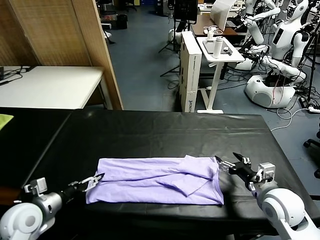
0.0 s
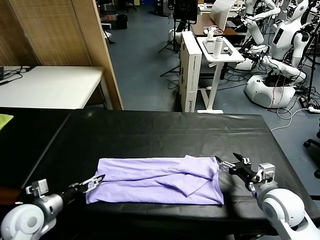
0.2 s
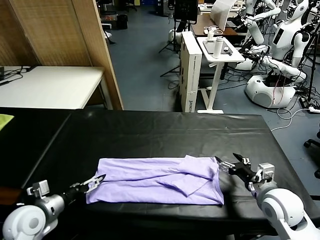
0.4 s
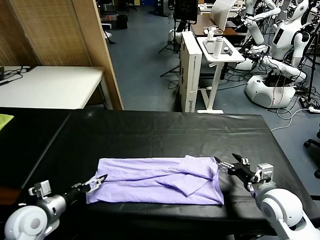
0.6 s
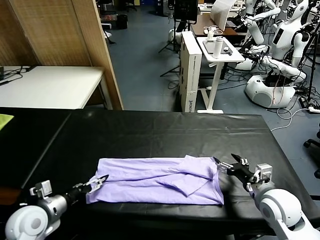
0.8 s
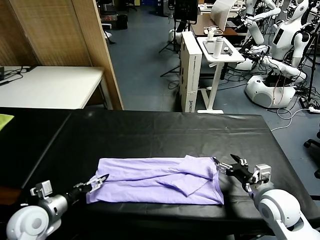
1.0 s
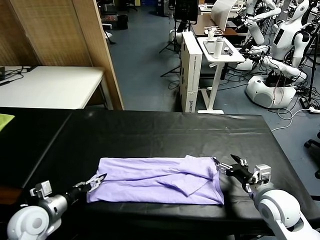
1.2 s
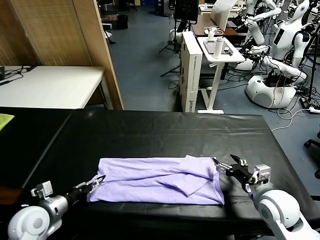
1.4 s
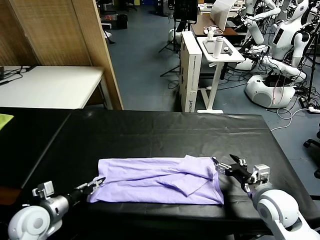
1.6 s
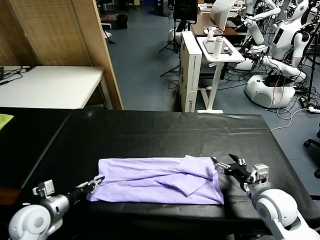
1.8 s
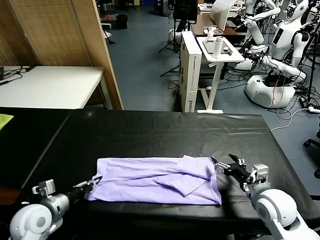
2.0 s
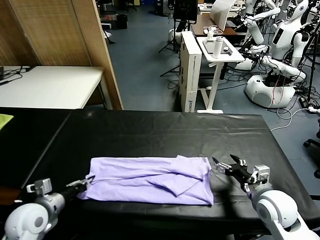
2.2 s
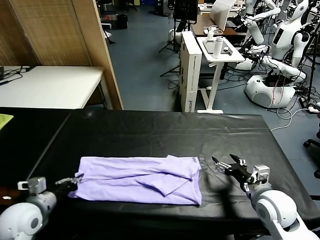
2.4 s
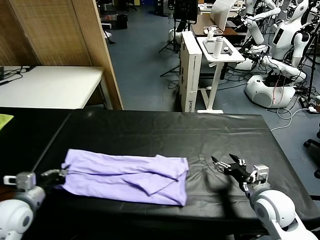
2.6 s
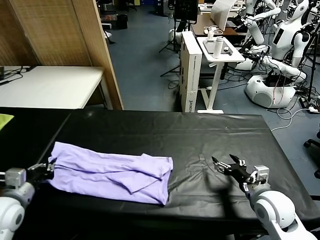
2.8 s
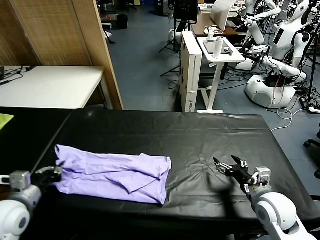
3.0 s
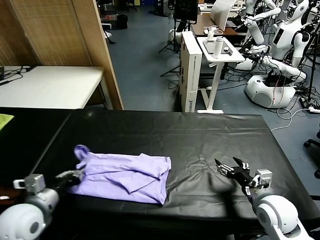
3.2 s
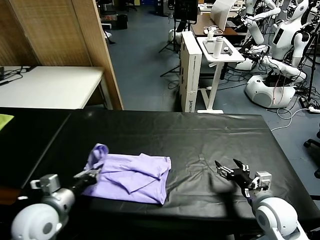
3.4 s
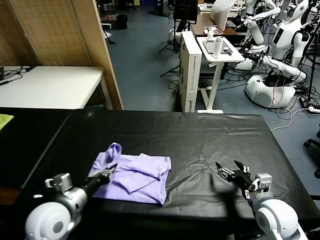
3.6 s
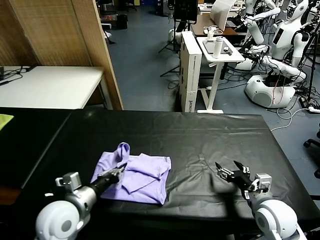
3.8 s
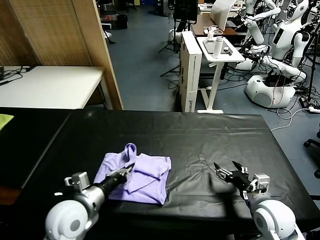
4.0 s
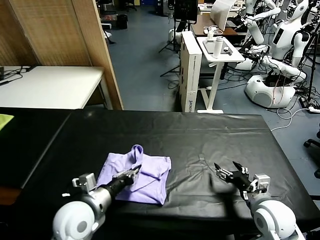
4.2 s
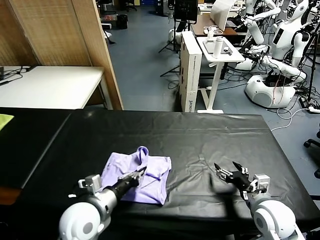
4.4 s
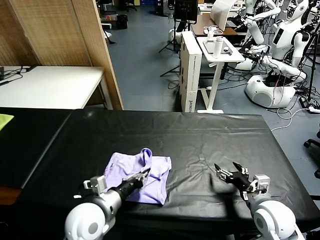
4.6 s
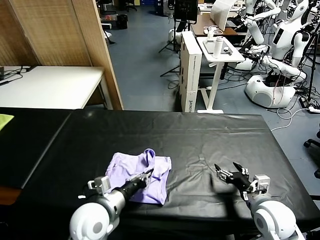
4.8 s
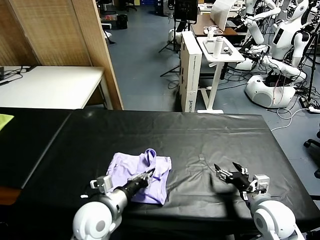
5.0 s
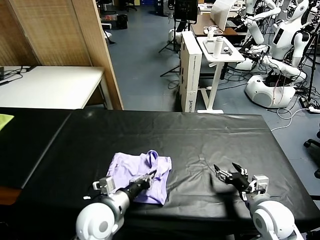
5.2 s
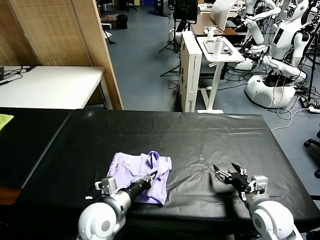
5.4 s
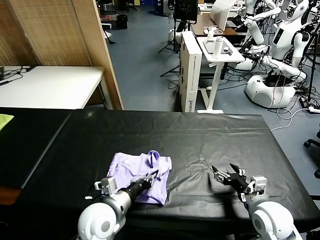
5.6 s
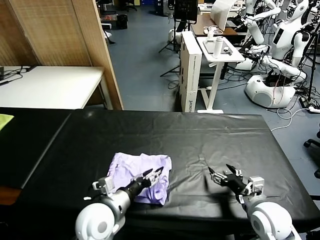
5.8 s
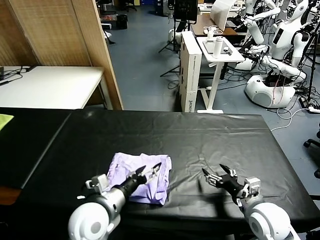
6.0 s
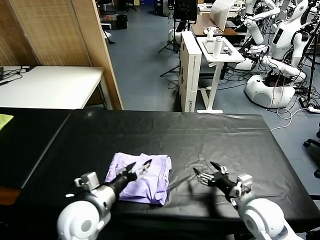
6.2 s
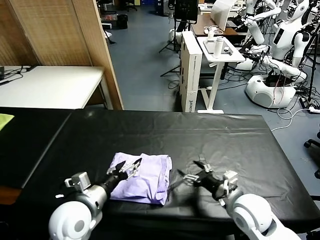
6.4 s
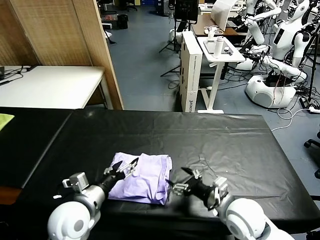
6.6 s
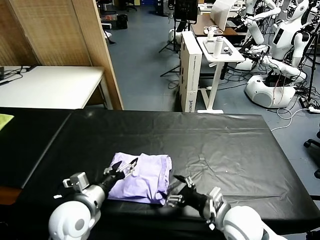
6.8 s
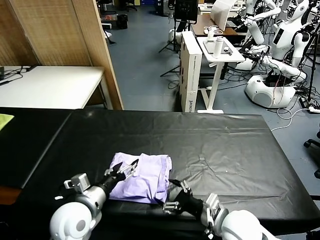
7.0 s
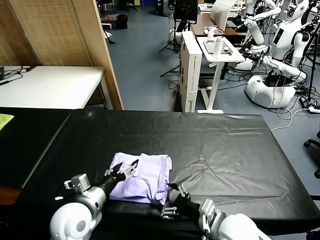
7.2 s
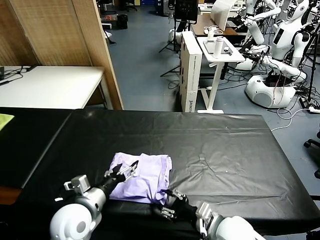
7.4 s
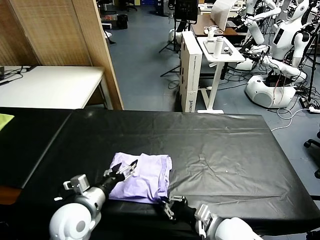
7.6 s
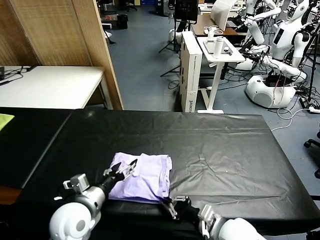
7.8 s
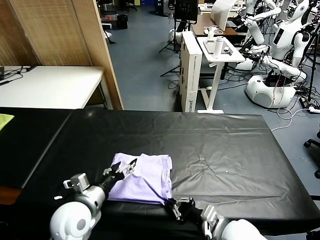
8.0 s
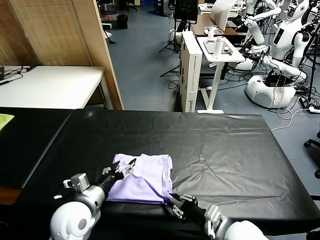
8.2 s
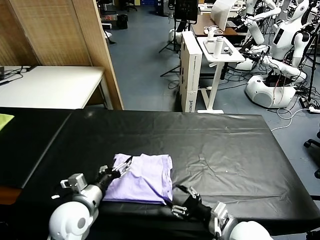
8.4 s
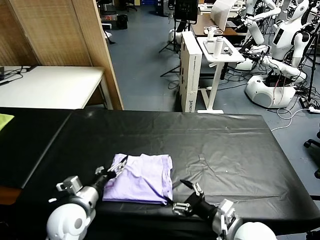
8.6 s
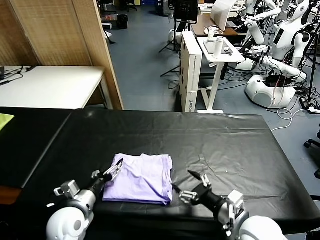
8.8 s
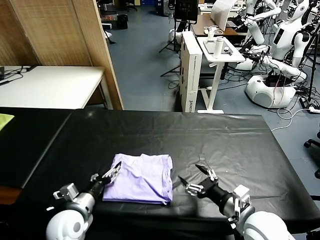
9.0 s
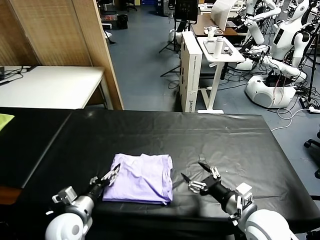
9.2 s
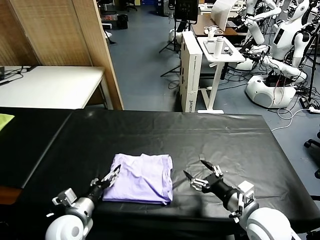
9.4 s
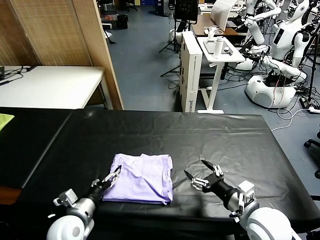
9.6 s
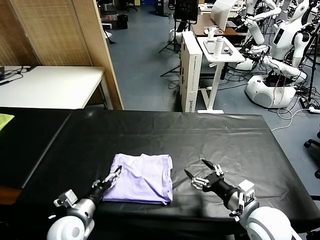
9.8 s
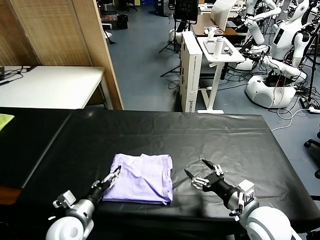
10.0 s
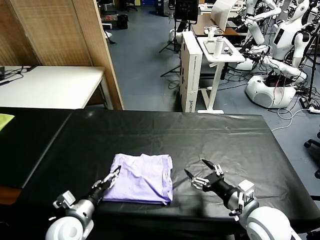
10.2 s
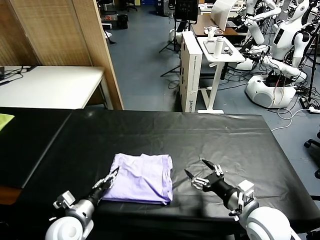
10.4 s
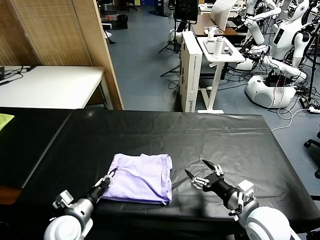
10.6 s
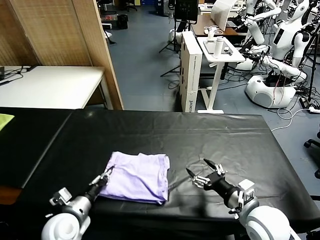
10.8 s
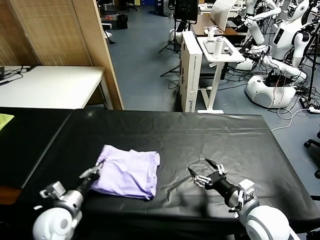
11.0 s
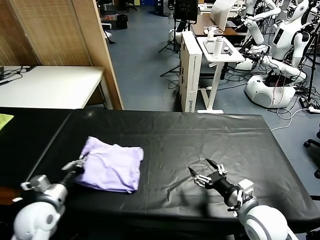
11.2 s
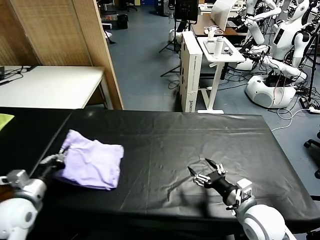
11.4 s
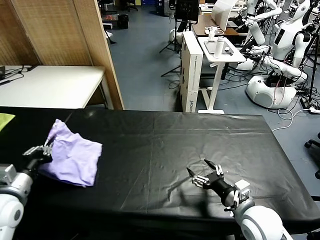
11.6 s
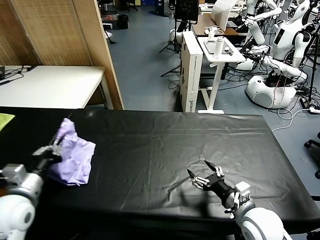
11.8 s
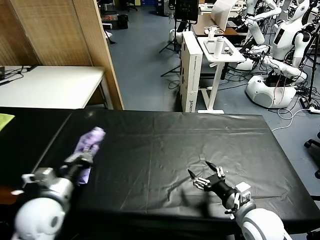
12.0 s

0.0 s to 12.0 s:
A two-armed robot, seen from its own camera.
Task of the whole recording: fold and organize the clothes.
Step, 0.0 to 2.0 s: use the left gripper to clamp the left edge of the fabric.
Step, 2.4 to 6.0 s: use the left gripper to drag the left edge of the fabric to the left and folds it over the right edge.
0.0 to 1.6 s: The left gripper closes up.
1.6 to 3.0 s: The left gripper is displaced upward by about 5 cm.
3.0 to 4.4 s: The left gripper heads to the right, covering approximately 20 cm.
4.4 to 6.0 s: The left gripper opens up.
6.0 to 7.6 s: The right gripper moves to the left, approximately 10 cm, and closes its fingers; the left gripper shifts about 5 cm to the left.
7.6 to 9.0 s: The left gripper goes roughly 5 cm downward; the right gripper moves to the right, roughly 5 cm, and opens.
9.0 to 10.4 s: The left gripper closes its fingers.
10.4 to 12.0 s: The left gripper travels upward by about 10 cm, and closes its fingers.

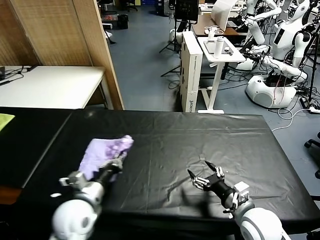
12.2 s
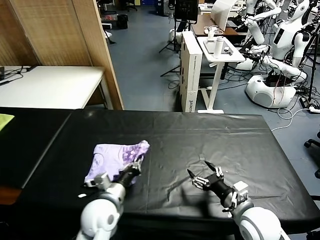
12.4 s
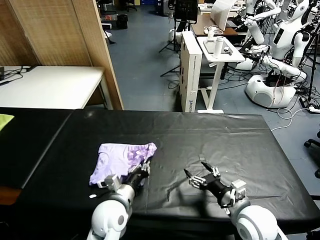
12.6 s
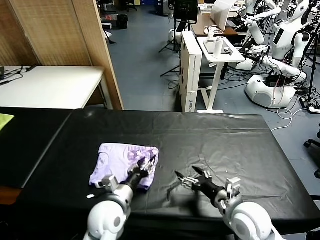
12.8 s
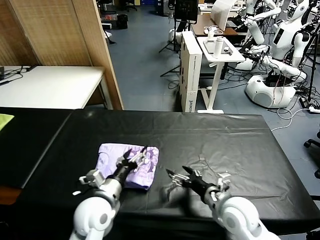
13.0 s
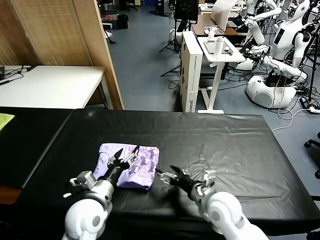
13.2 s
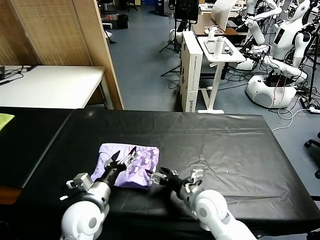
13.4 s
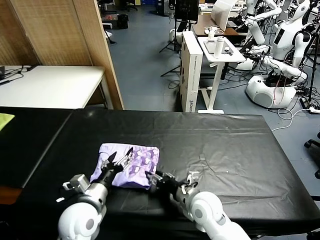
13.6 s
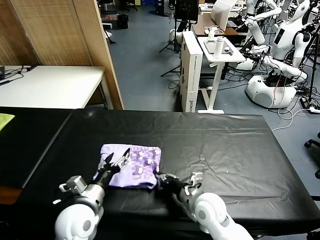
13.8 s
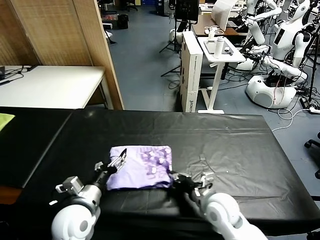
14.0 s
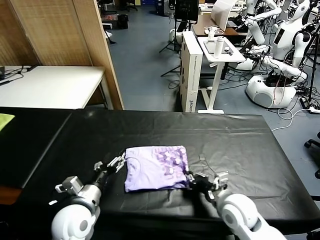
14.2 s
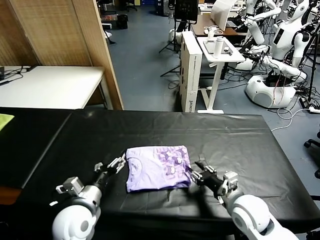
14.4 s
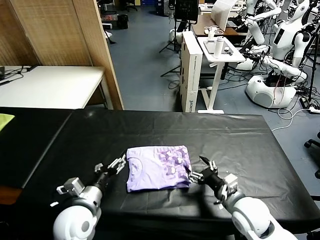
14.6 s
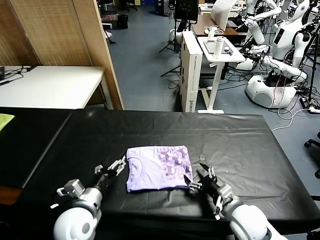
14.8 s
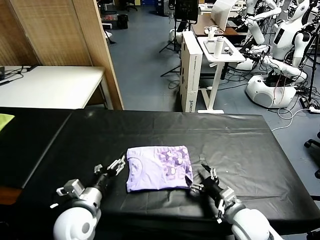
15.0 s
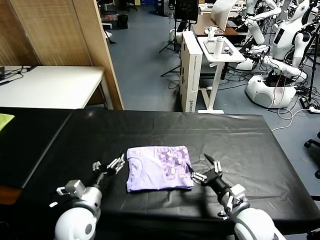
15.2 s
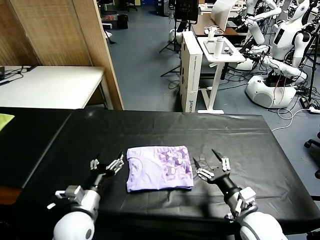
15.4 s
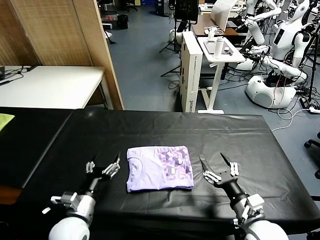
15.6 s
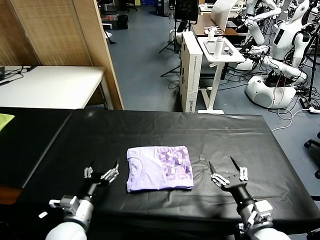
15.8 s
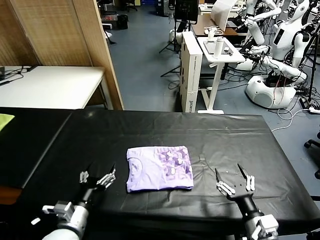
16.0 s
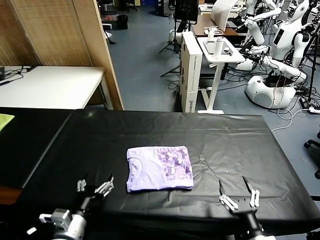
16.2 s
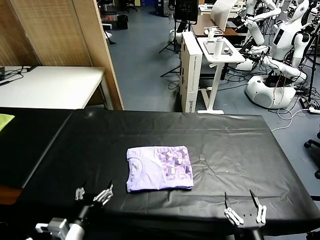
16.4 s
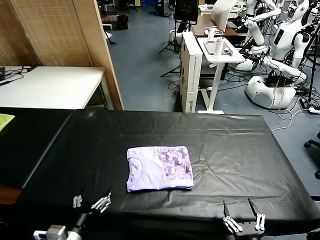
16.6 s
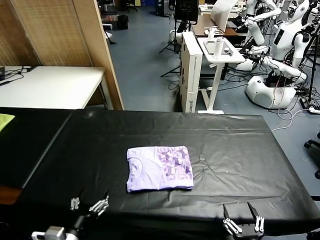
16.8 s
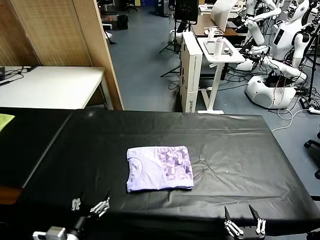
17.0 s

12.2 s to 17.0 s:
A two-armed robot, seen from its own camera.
Task of the whole recording: fold and organize the clothes.
Step, 13.0 to 14.4 s: Drag the clothes to the center of the table.
12.2 to 13.8 s: The right gripper is displaced to the left and forward by approximately 15 cm, and closes its fingers. The left gripper travels to the right and back again, some 10 cm each way, and opens its fingers.
13.8 to 15.4 s: The right gripper travels to the right and backward by some 15 cm, and opens up.
15.4 to 17.0 s: The right gripper heads backward, covering approximately 20 cm. The left gripper goes about 10 cm backward.
